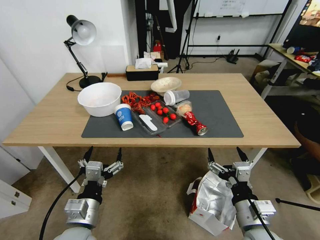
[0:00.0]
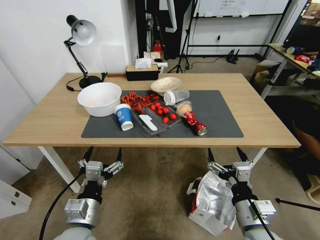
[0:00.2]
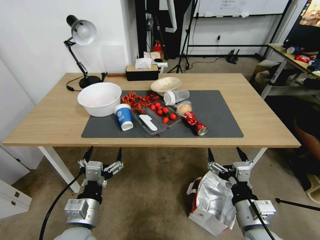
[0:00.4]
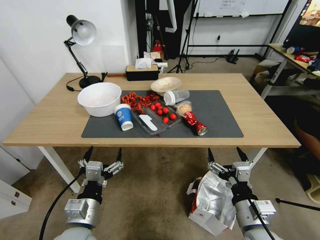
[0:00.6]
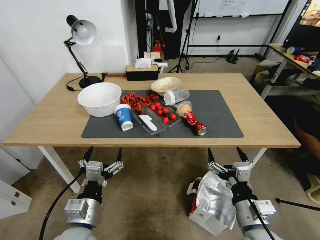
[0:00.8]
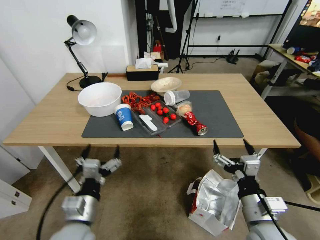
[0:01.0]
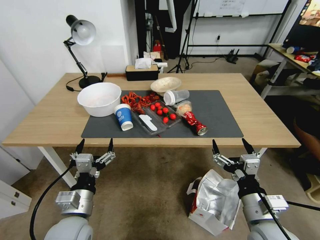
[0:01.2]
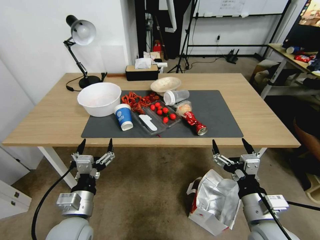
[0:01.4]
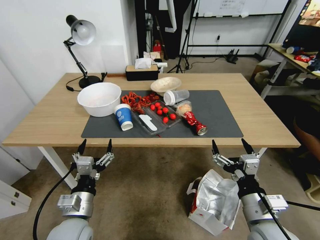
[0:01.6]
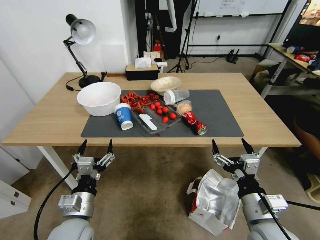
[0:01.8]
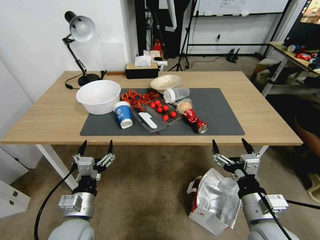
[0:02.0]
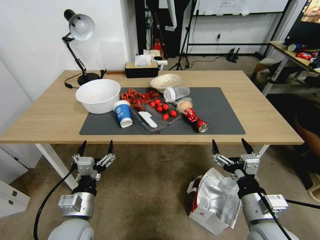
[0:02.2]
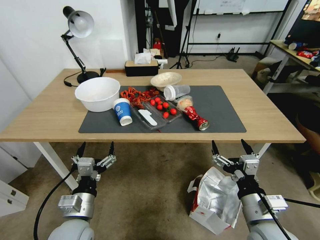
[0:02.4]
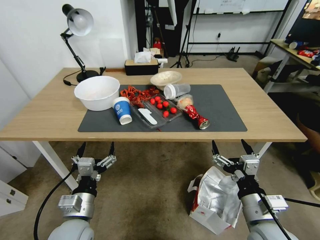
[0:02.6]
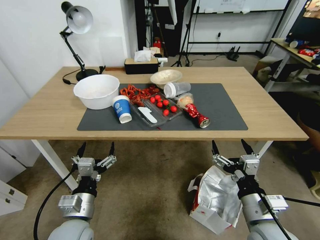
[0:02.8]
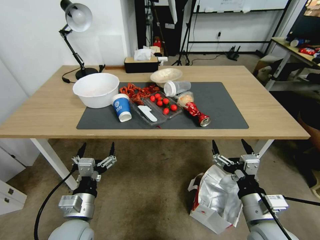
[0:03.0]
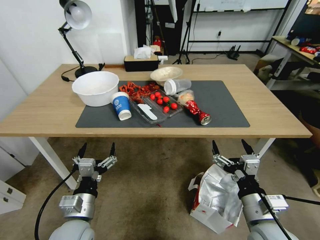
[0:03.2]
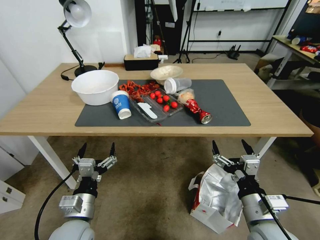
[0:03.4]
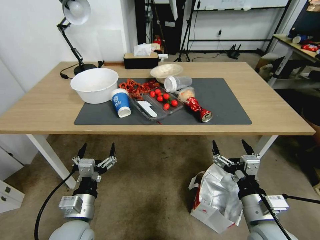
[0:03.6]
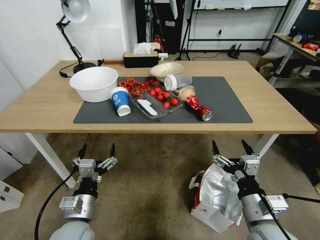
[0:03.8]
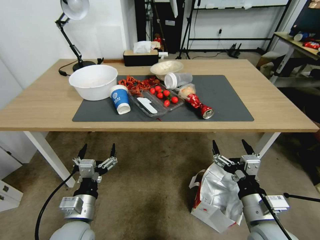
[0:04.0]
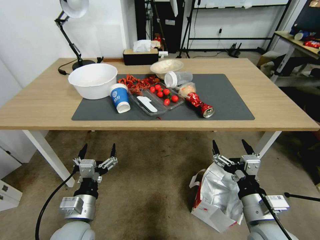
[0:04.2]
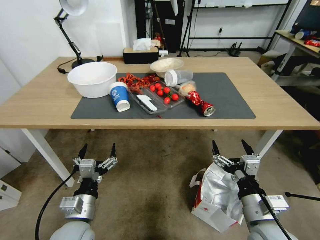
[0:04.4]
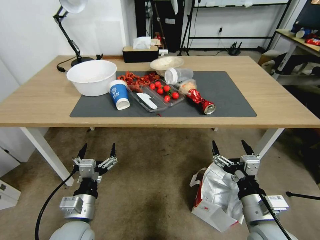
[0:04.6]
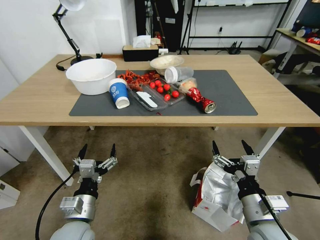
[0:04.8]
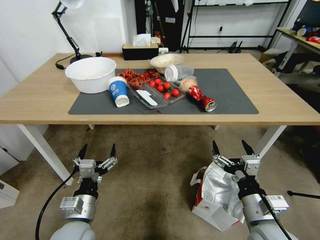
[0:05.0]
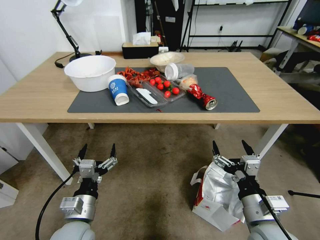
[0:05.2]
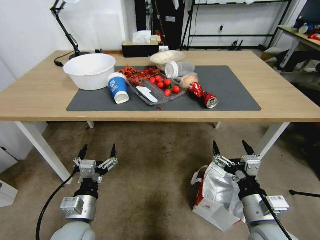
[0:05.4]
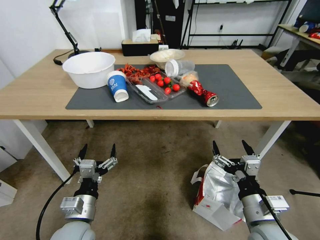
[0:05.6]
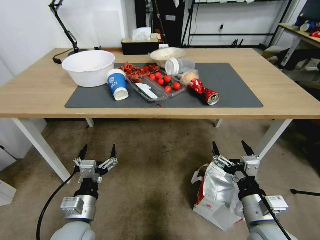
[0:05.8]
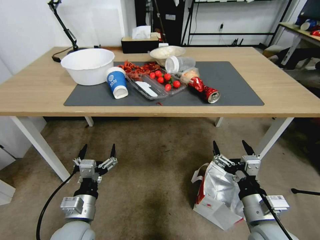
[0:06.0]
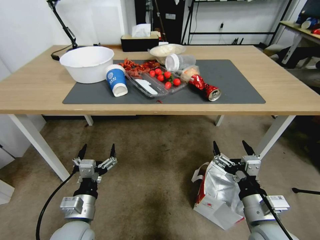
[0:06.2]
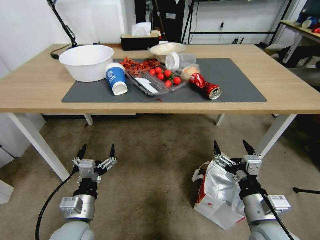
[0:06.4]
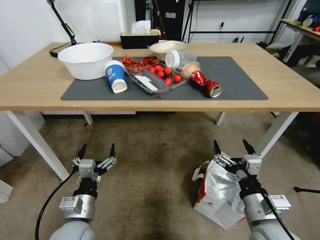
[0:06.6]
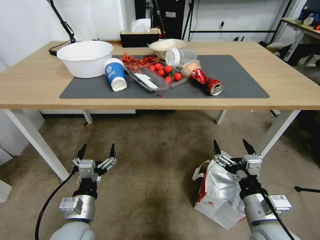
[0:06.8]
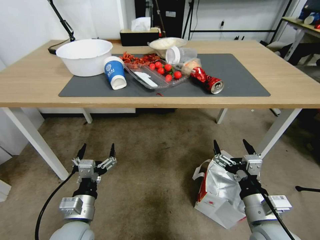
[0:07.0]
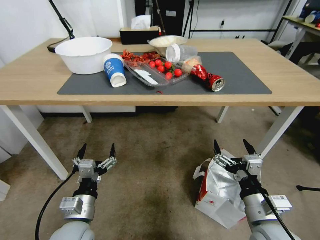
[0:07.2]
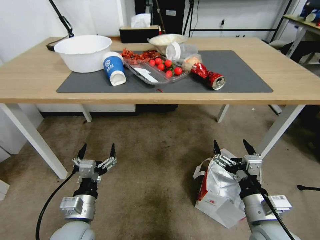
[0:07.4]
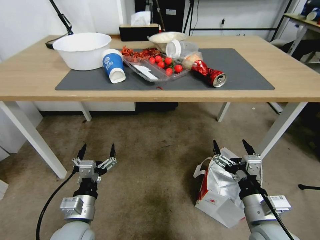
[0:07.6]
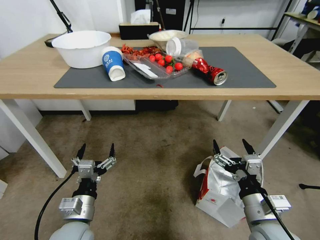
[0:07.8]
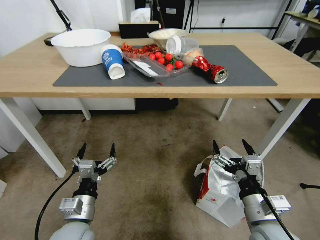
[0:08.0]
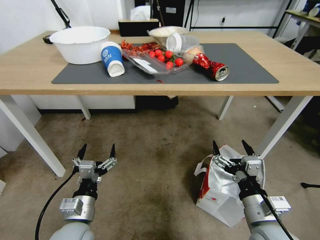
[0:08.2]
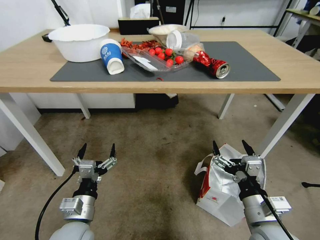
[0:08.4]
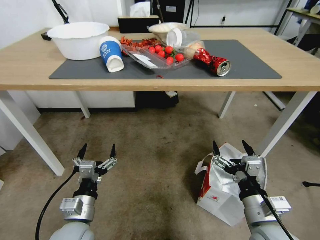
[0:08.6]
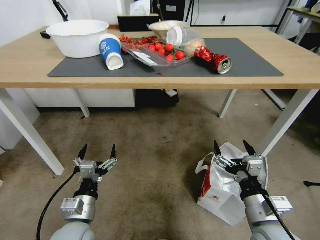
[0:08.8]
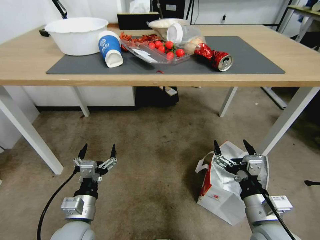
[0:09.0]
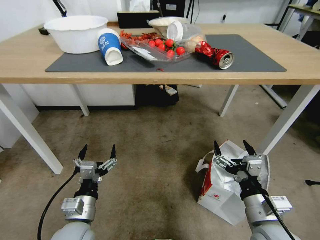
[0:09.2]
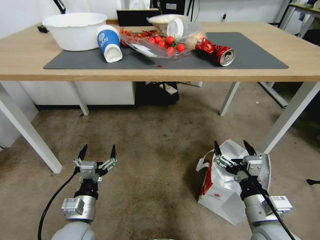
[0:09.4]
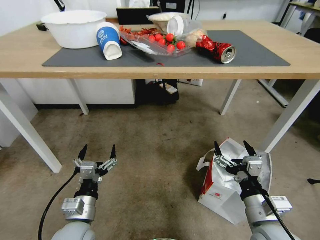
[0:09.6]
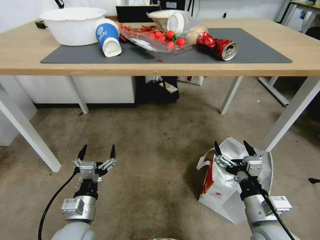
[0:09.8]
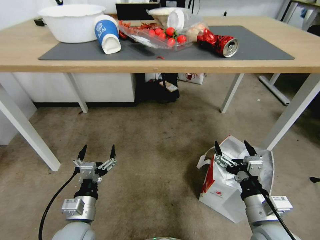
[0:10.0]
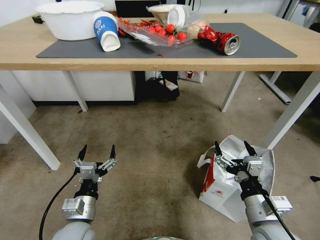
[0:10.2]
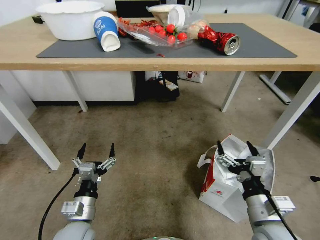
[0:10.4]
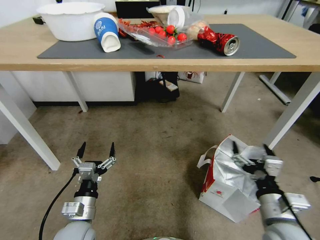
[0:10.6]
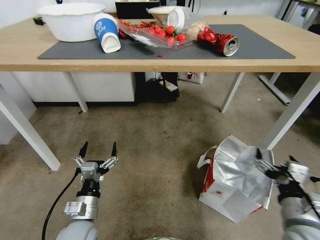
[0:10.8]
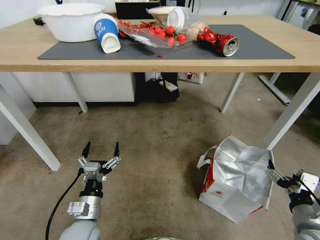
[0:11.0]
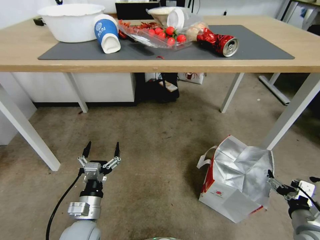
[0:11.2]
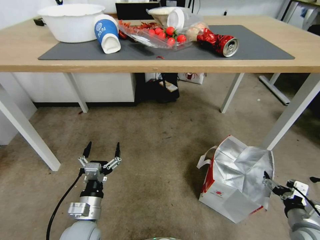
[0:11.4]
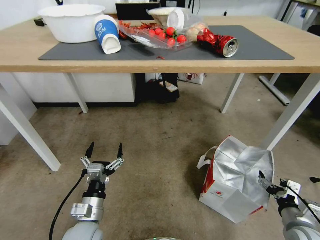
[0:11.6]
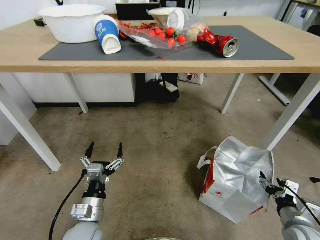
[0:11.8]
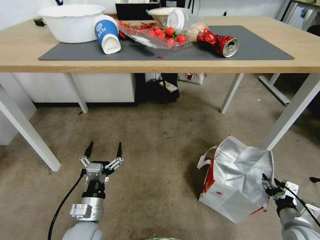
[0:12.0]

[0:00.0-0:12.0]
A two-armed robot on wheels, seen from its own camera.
Task of the whole recording: Pick up the food delivery bag from the floor and place it on the table.
0:10.4 to 0:12.0: The right gripper is displaced to the right and downward by about 20 cm, and closes its fingers.

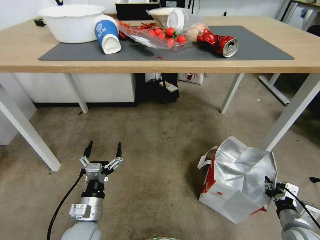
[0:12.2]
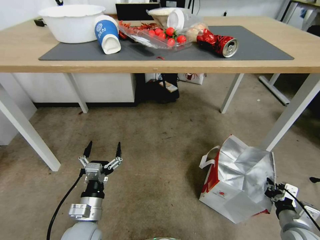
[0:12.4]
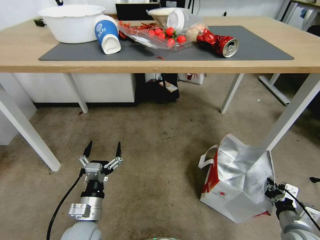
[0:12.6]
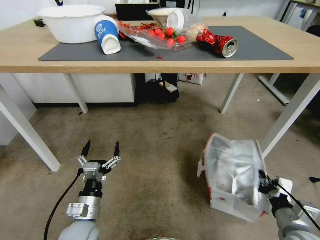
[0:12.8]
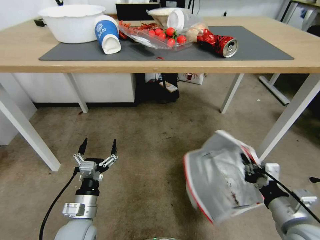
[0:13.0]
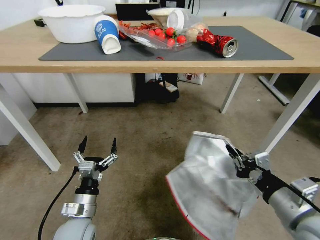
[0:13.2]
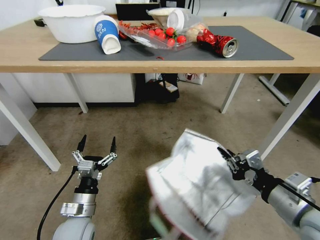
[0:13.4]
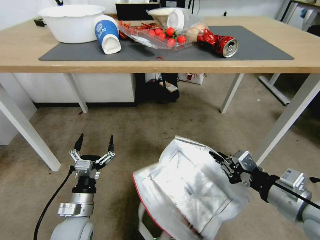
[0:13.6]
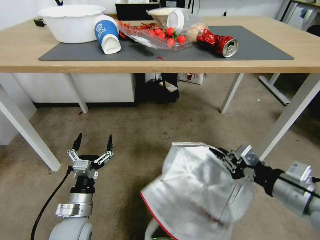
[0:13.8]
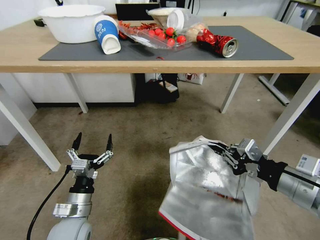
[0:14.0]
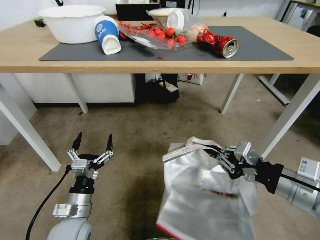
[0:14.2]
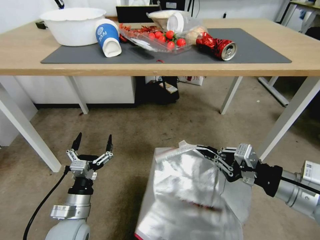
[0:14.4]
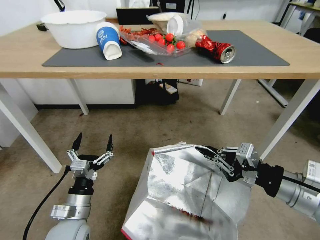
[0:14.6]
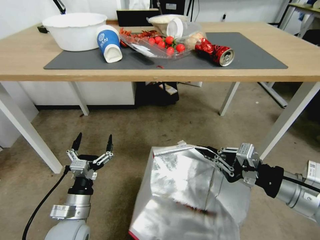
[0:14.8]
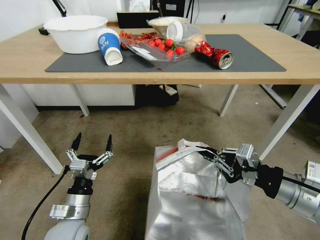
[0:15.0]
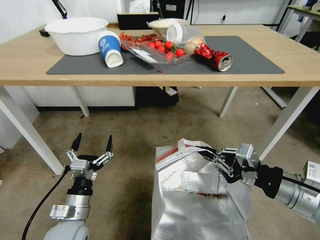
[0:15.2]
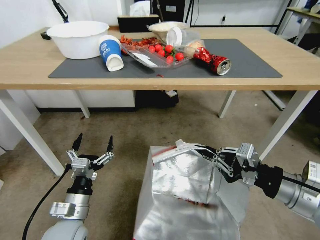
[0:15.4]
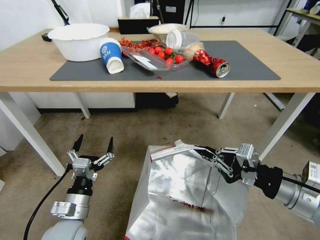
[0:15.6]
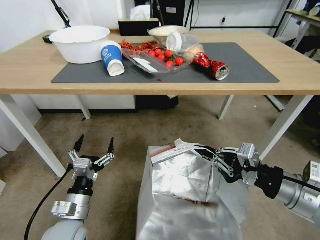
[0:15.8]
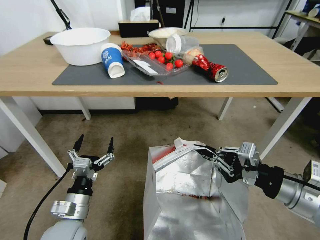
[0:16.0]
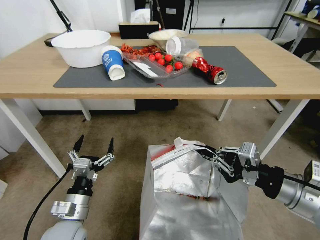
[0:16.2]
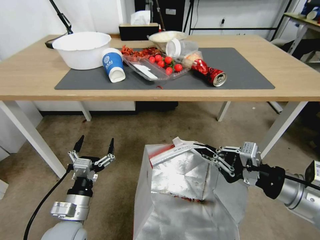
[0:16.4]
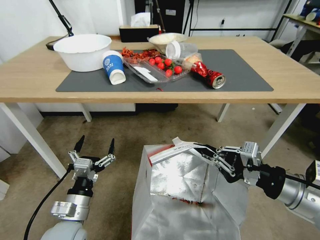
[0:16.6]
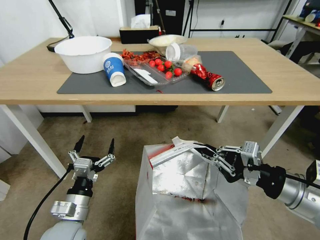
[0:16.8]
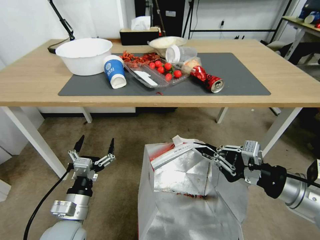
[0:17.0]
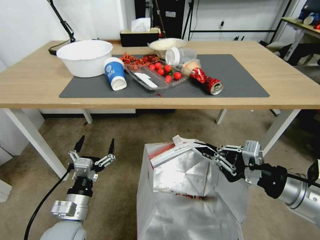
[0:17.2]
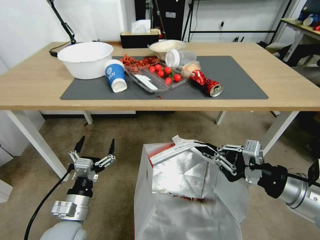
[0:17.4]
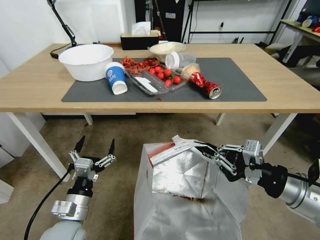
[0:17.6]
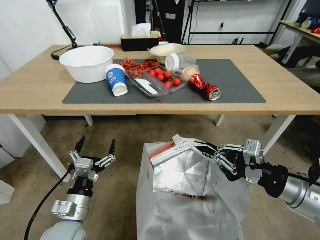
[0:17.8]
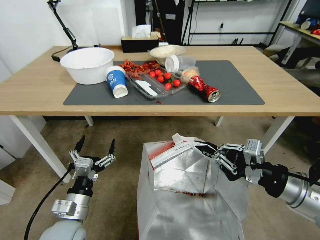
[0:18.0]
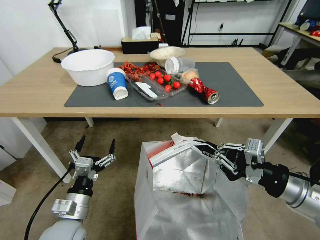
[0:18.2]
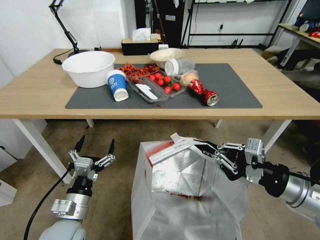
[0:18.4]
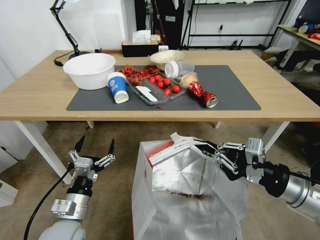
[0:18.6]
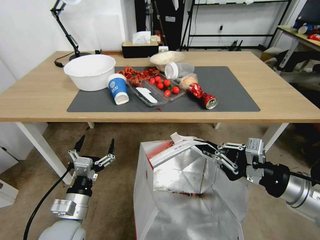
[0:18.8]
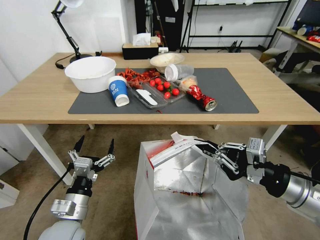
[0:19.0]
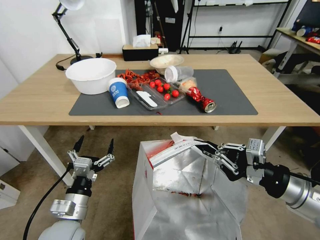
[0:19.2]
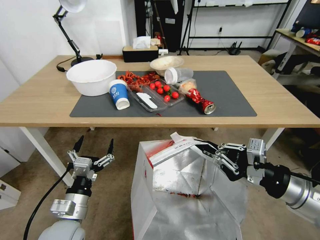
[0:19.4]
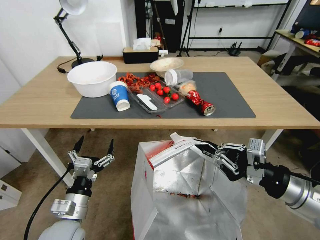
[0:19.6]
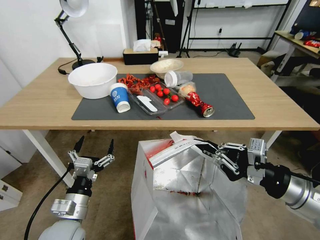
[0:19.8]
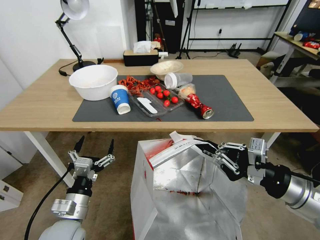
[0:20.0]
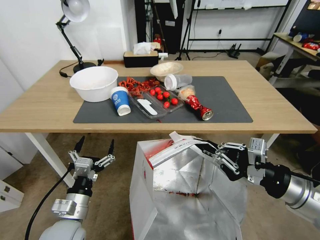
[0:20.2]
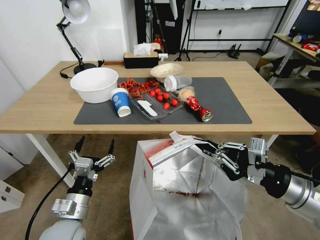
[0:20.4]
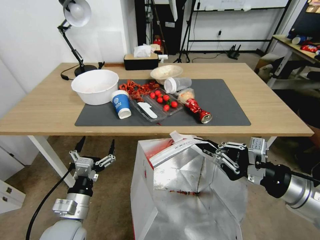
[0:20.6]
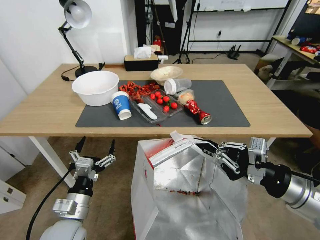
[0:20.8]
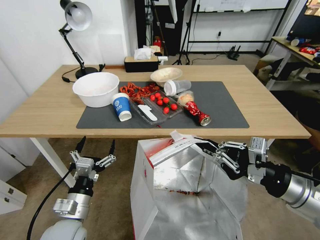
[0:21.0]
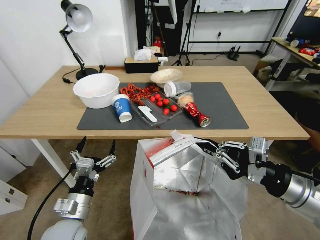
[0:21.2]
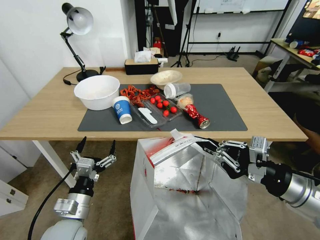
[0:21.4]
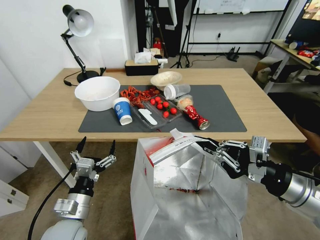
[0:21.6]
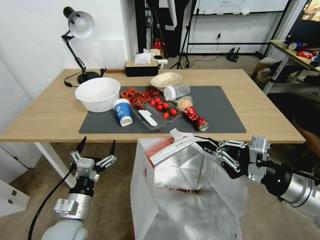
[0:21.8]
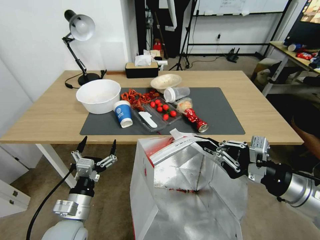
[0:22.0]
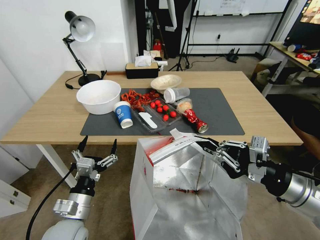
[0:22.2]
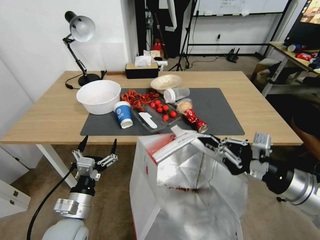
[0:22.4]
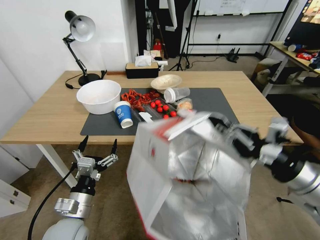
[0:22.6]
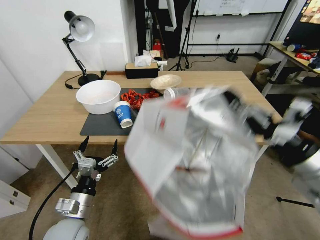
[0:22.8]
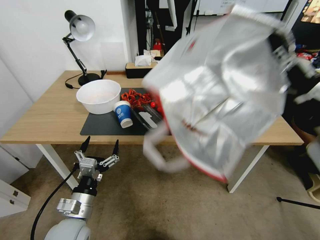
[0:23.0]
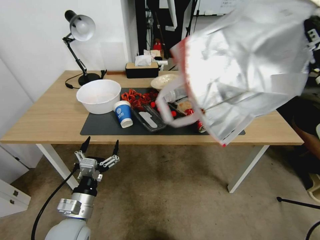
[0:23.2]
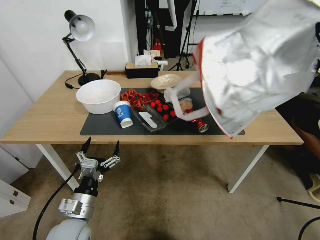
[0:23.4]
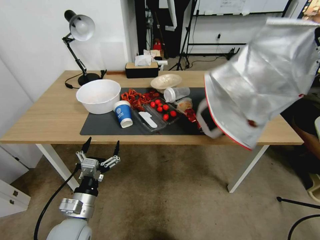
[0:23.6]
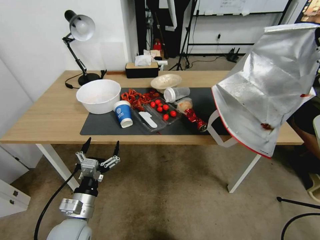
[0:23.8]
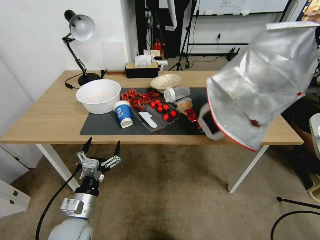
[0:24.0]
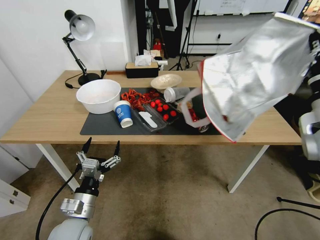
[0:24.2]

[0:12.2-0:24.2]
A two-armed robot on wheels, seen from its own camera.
Task of the whole recording: Pick up the food delivery bag from the floor and place it on the table.
0:12.2 to 0:13.8: The right gripper shifts about 25 cm upward.
0:22.6 to 0:24.2: The right gripper is displaced forward and upward by approximately 10 cm.
